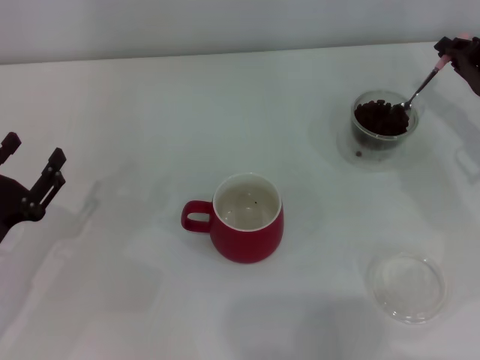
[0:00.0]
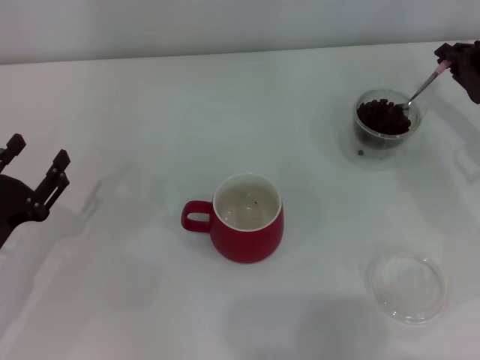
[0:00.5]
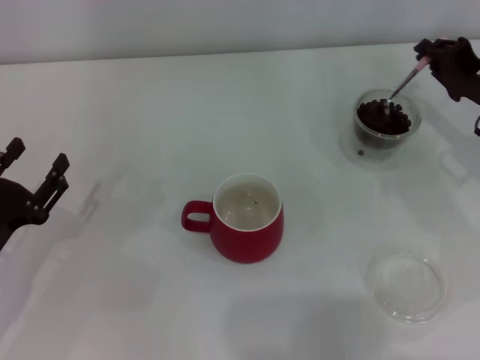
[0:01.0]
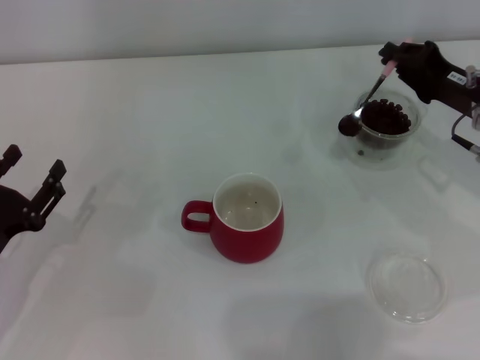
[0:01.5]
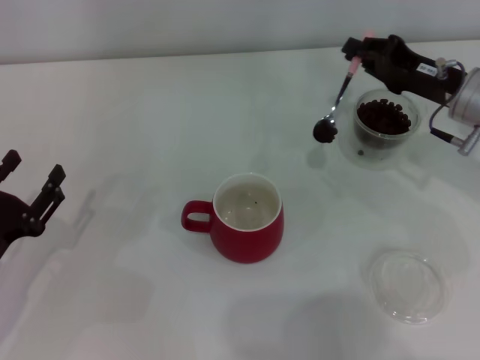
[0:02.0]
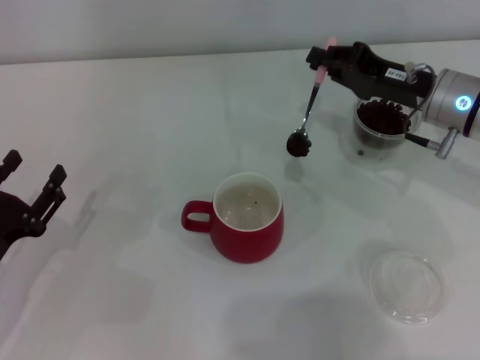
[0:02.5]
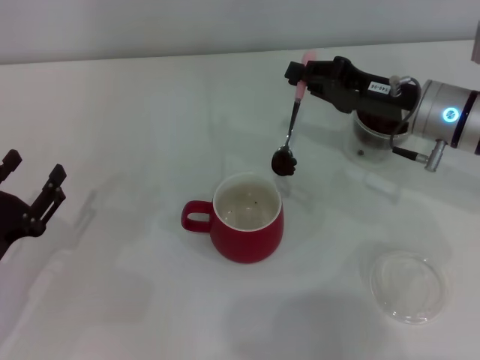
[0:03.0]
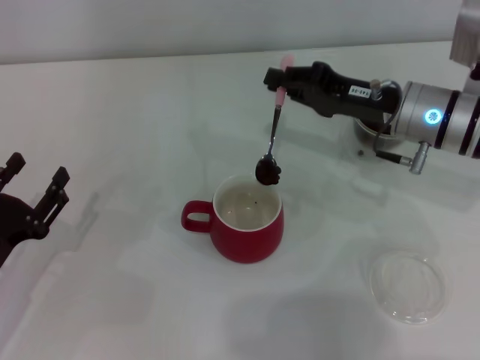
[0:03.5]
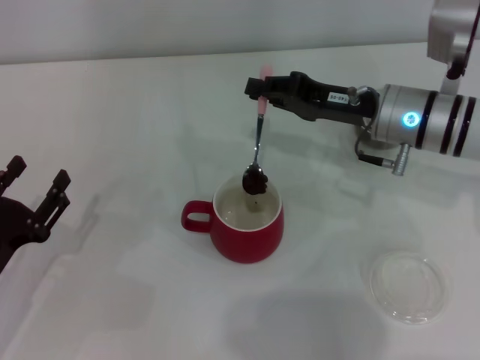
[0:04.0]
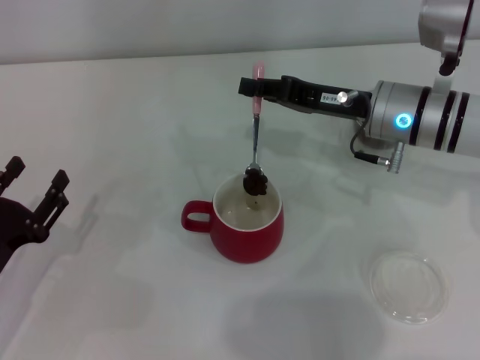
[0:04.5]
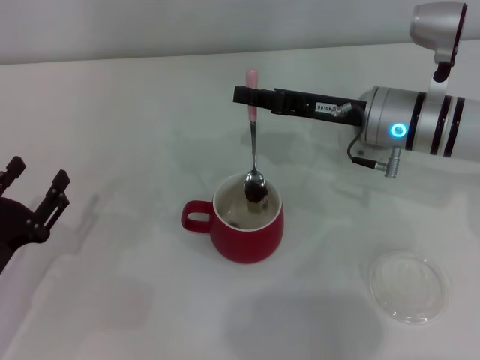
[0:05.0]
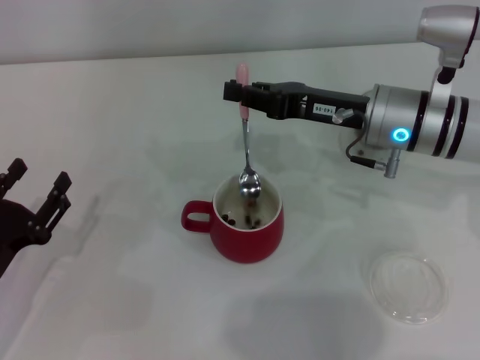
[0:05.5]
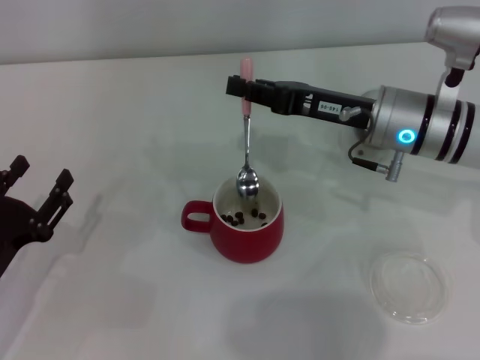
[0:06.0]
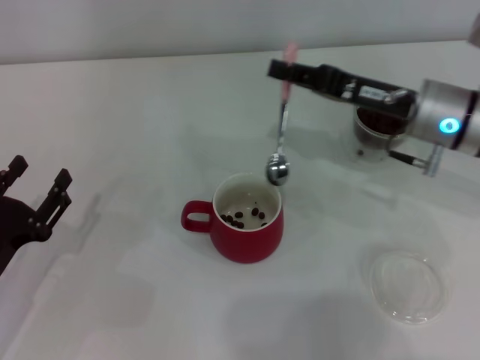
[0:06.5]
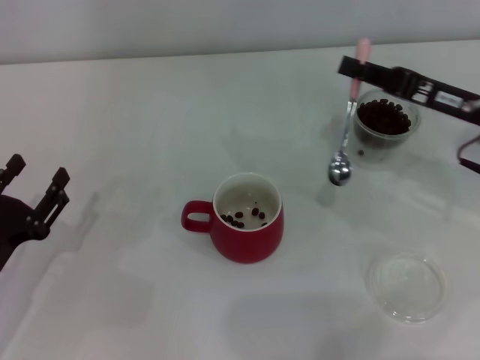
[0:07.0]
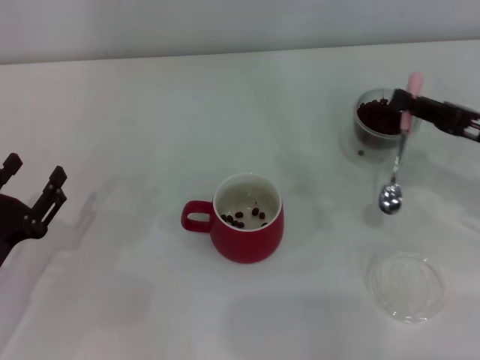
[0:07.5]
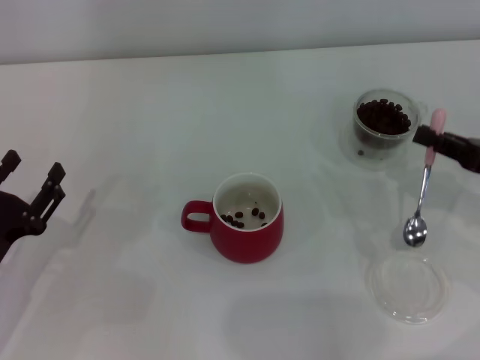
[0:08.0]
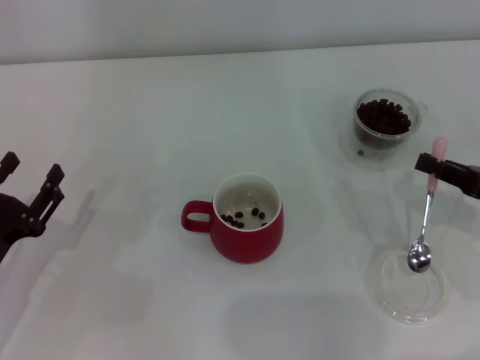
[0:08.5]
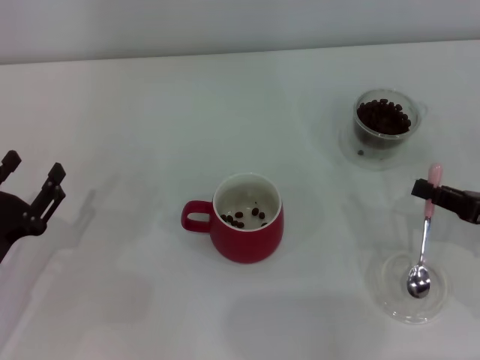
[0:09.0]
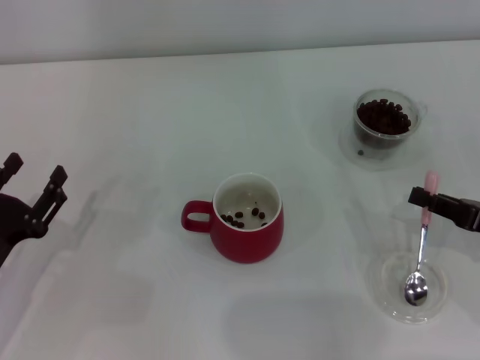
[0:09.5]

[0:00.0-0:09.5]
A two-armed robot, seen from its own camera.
Task of the whole recording: Use a pink spoon to take out the coffee beans from the glass and pour them into the red cup.
Step, 0:00.0 to 0:06.0: Scoop a spoonful of beans into the cup with the right gripper.
0:00.0 to 0:02.0: The right gripper moves to the left, some 5 cm.
0:02.0 to 0:04.0: The right gripper moves to the left, some 10 cm.
0:05.5 to 0:07.5: The right gripper is displaced to the right and backward by some 15 cm.
0:07.5 to 0:09.5: The right gripper moves backward and downward, about 10 cm.

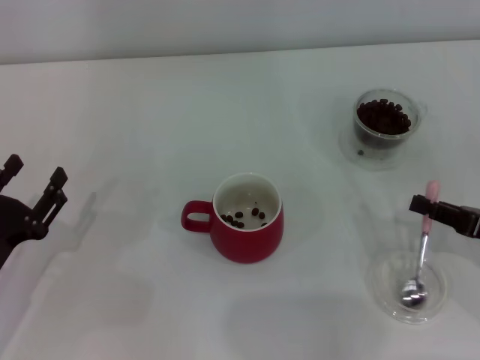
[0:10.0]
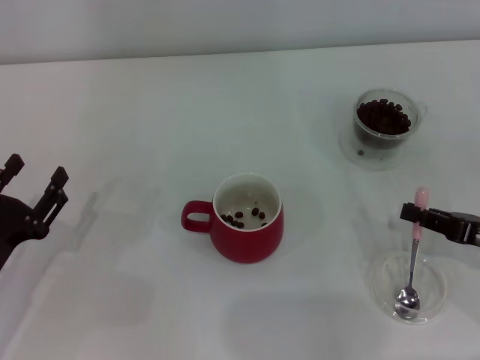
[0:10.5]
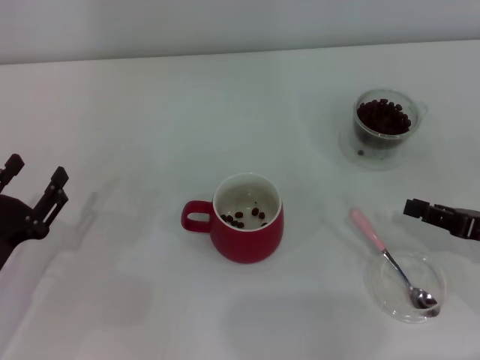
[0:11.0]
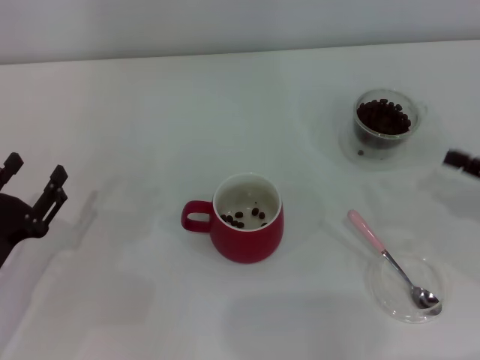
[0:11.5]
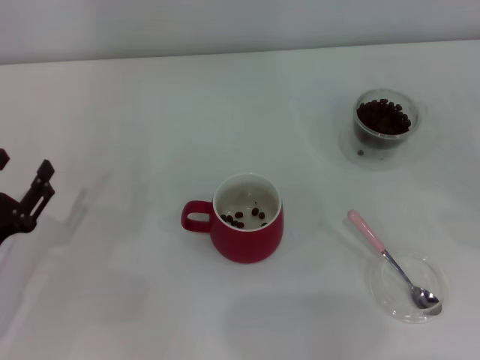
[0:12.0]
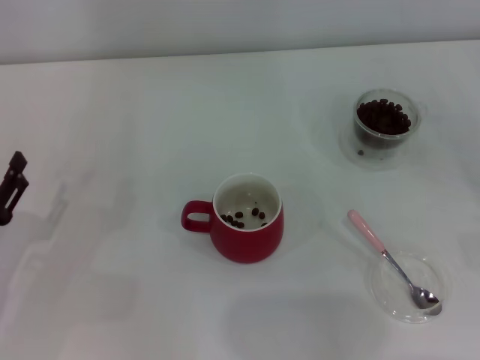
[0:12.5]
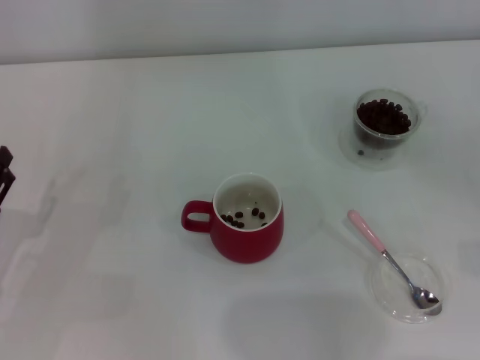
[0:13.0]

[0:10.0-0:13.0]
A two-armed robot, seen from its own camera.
Task of the whole recording: Use a pink spoon to take out the coffee beans from the glass and pour them into the red cup.
0:10.0 to 0:11.5: The grippers stay close to where they were, moving slightly.
